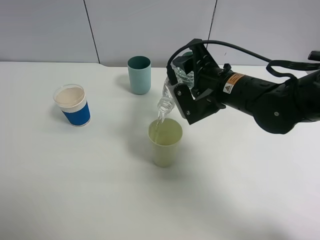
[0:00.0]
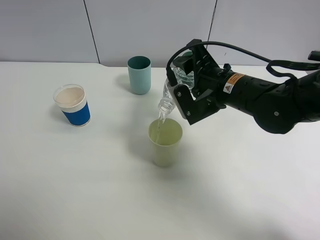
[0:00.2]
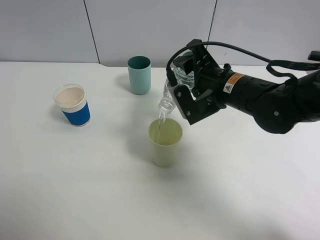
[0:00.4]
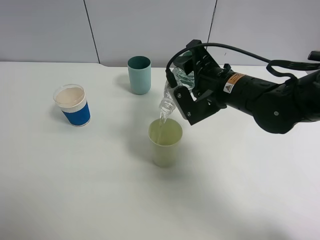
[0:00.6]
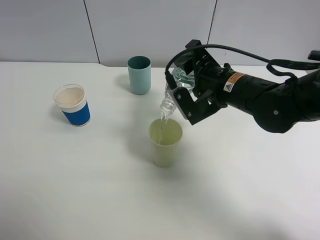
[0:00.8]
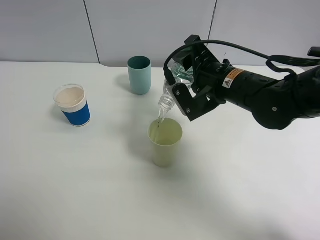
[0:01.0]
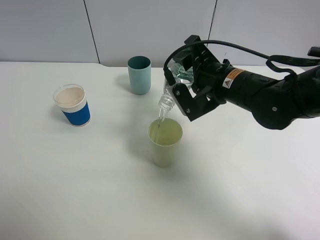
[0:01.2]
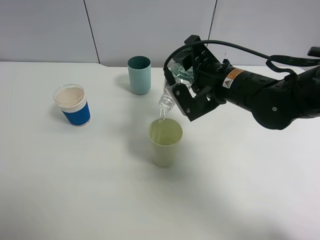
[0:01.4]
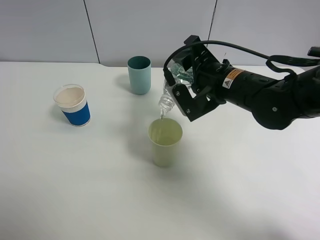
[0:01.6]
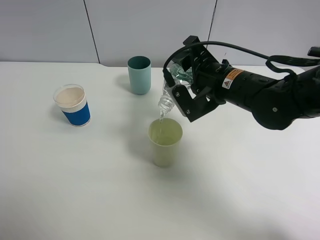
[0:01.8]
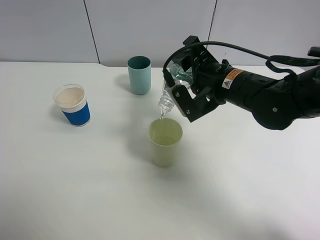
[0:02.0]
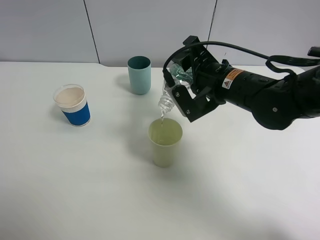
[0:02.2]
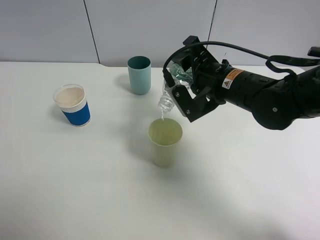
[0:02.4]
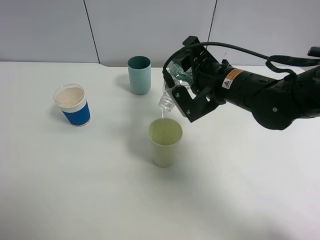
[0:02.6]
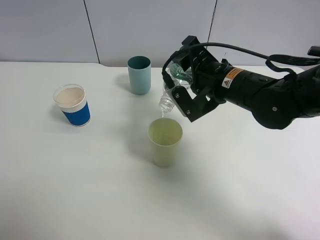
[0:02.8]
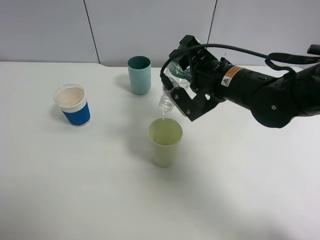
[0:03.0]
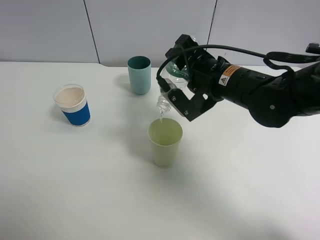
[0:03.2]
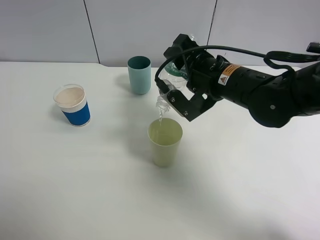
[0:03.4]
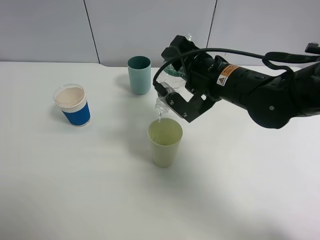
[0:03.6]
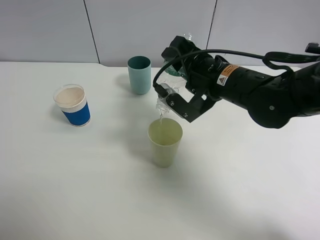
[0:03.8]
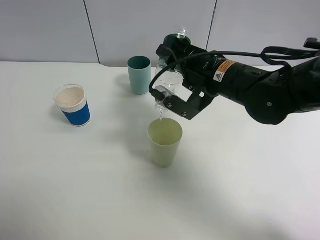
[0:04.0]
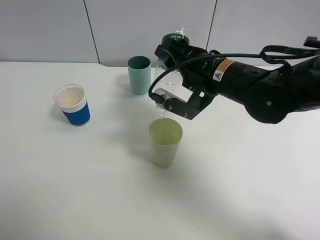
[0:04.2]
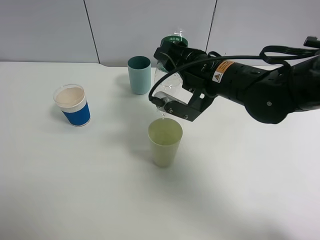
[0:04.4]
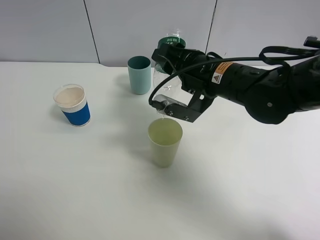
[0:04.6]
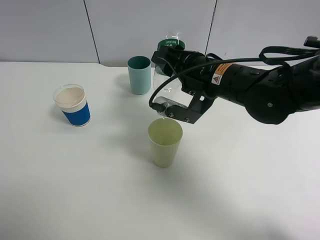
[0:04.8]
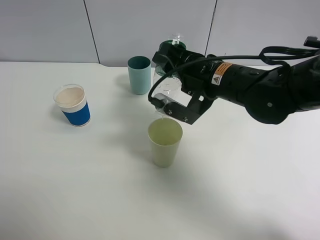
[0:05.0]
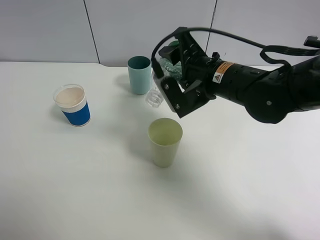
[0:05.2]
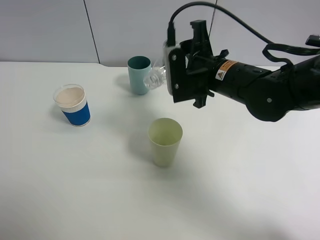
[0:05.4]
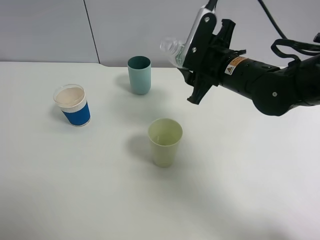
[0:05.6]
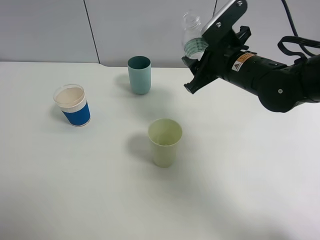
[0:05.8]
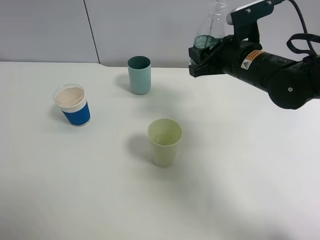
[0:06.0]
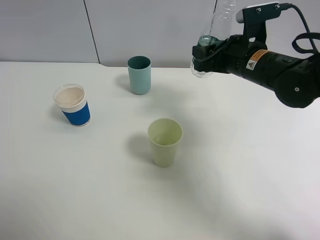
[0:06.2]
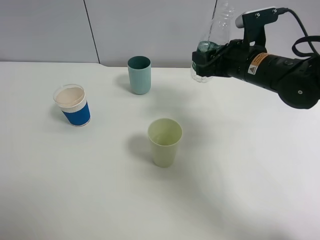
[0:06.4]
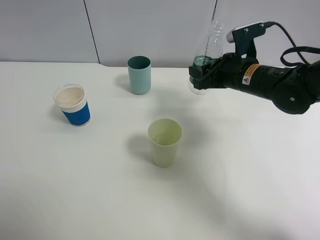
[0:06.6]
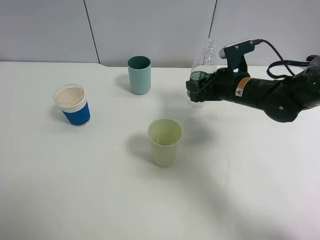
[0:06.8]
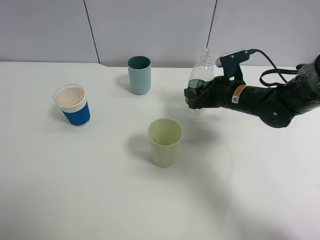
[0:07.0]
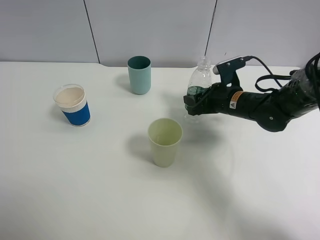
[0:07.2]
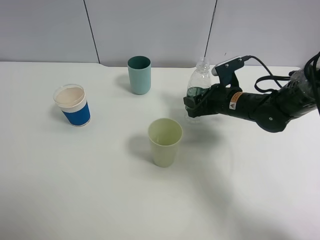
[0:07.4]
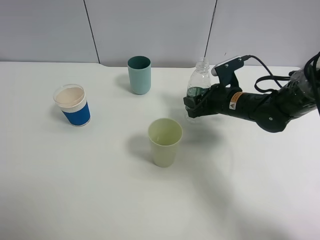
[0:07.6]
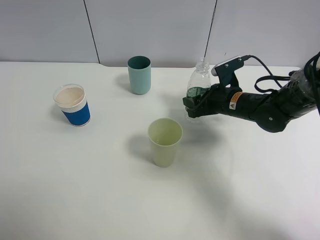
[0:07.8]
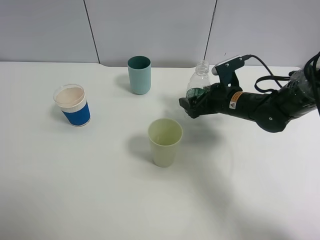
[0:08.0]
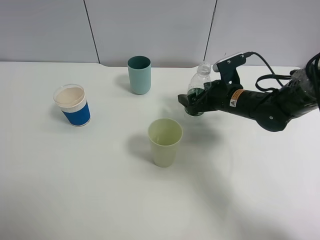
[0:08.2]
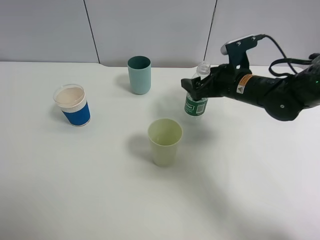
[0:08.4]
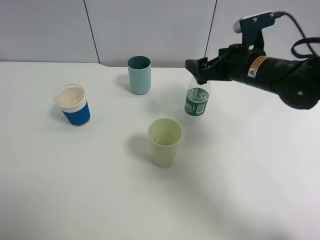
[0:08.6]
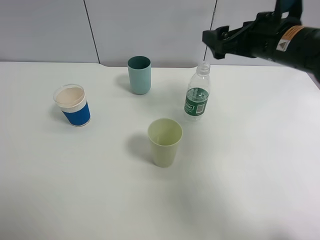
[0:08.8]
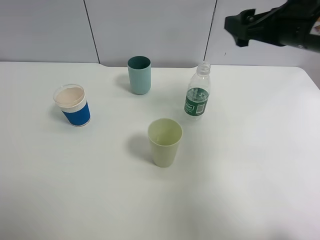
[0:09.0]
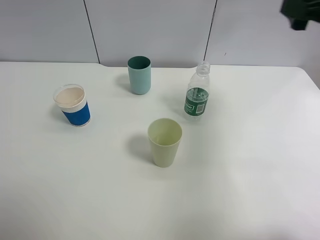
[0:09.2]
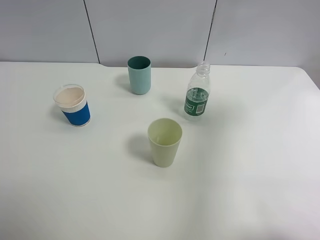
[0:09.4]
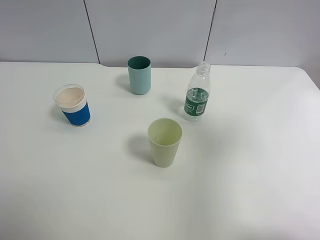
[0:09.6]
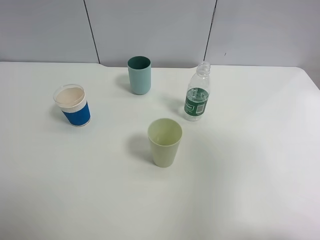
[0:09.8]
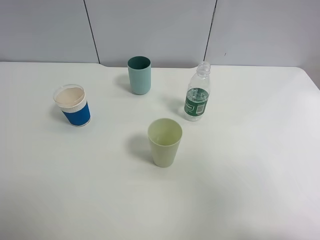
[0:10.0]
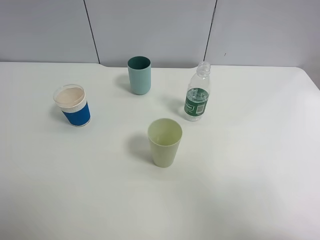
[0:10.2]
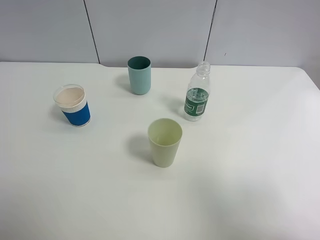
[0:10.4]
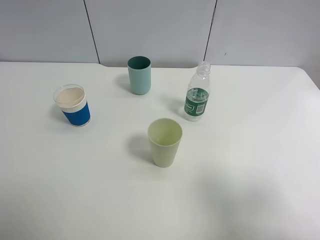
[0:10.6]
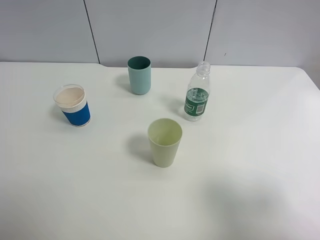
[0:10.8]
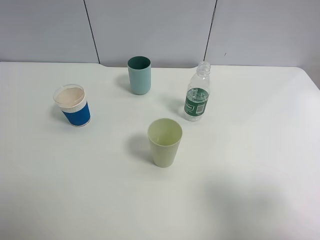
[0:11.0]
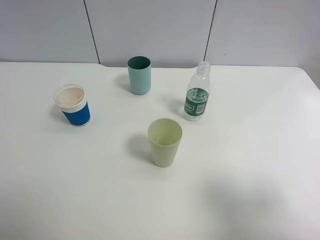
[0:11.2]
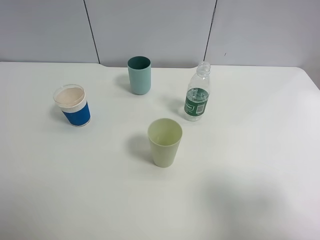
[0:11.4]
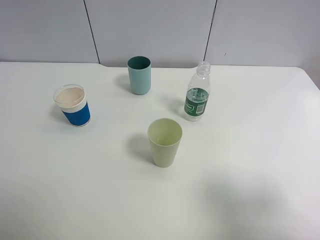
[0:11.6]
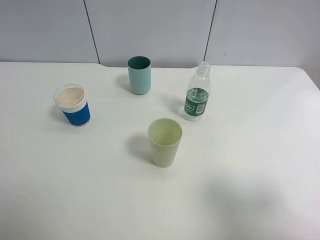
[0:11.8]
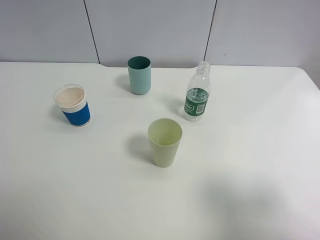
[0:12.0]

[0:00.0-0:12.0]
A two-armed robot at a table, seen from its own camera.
Task of the whole recording: use a clamp to hold the bottle of the drink, pour the beverage into a random cup, then clamp the cup containing the drink and pour the drink into another random cup.
Step, 0:00.0 to 0:05.2: Pour water into the green plastic cup with right gripper.
Step, 0:05.4 to 0:07.8: Place the water bottle on the table with right gripper.
0:00.0 to 0:03.0: There are only small adjustments of the grippers.
0:03.0 to 0:04.4: The grippers move only a little.
0:04.4 to 0:06.0: The right gripper shifts about 5 cm to the right.
0:06.0 to 0:07.6: The right gripper travels downward by approximately 10 cm.
0:07.6 to 0:09.0: The right gripper heads upward, covering some 20 cm, and opens.
0:09.0 to 0:10.4: The right gripper is displaced backward by about 30 cm.

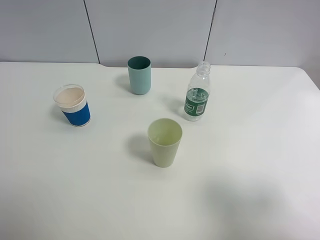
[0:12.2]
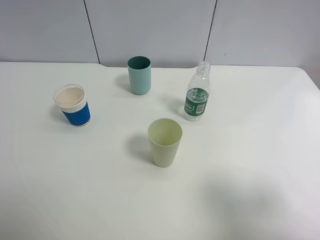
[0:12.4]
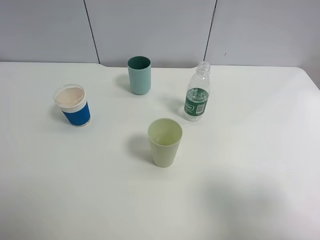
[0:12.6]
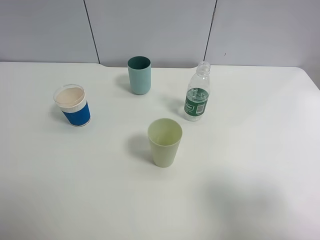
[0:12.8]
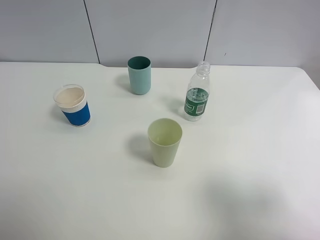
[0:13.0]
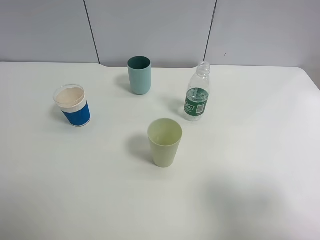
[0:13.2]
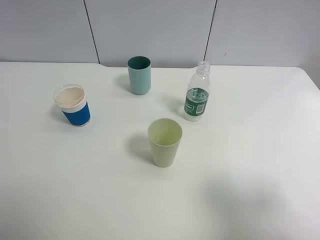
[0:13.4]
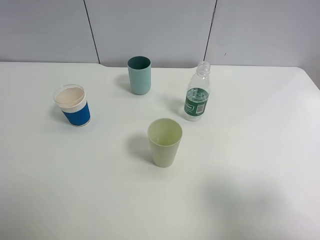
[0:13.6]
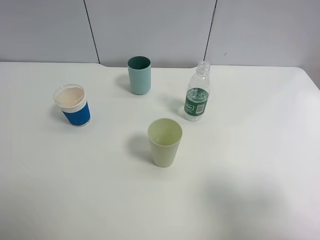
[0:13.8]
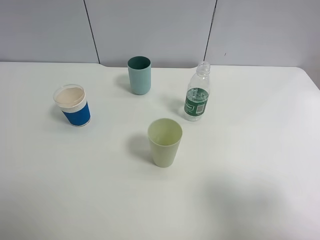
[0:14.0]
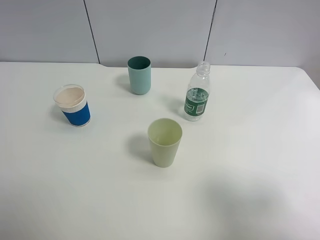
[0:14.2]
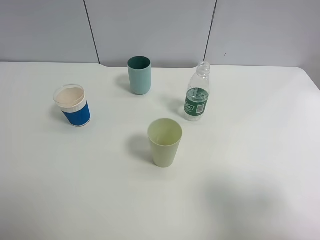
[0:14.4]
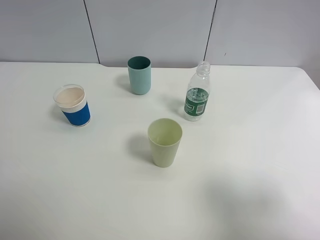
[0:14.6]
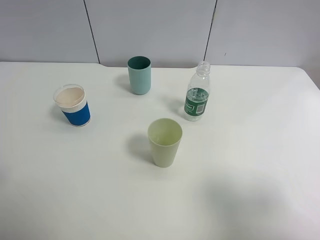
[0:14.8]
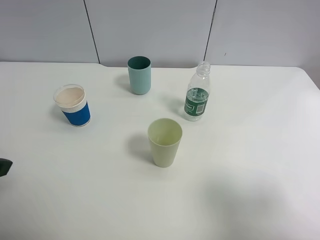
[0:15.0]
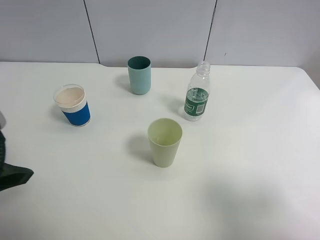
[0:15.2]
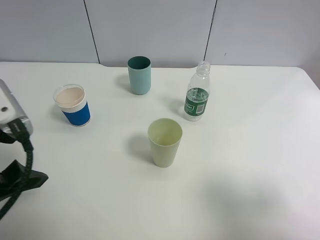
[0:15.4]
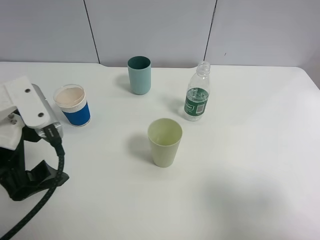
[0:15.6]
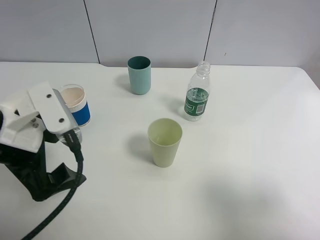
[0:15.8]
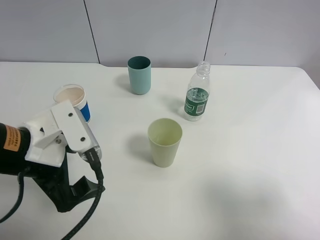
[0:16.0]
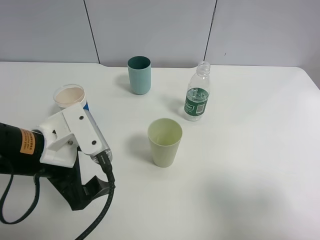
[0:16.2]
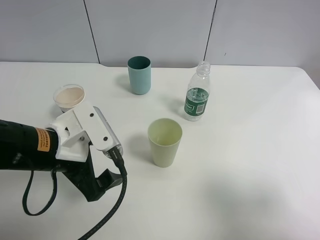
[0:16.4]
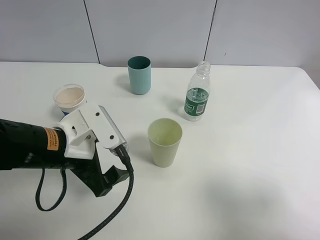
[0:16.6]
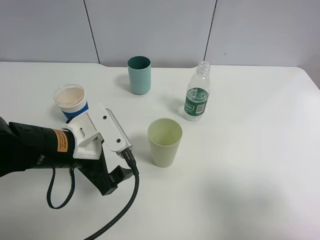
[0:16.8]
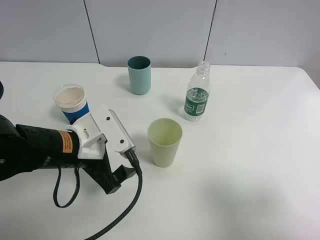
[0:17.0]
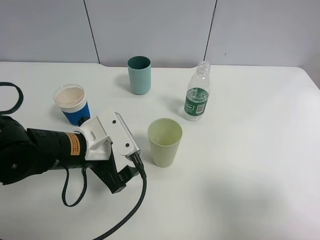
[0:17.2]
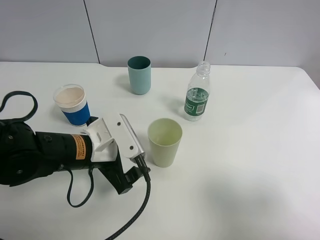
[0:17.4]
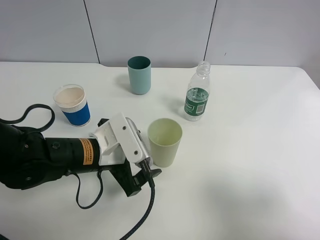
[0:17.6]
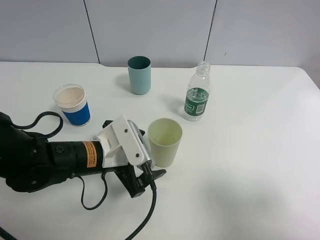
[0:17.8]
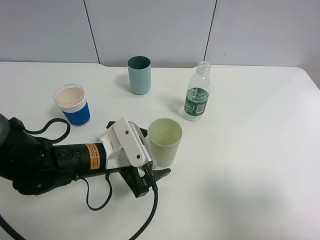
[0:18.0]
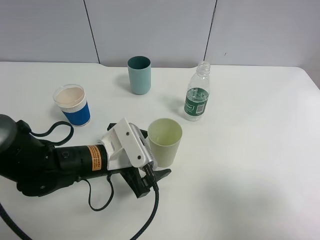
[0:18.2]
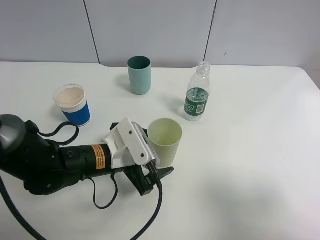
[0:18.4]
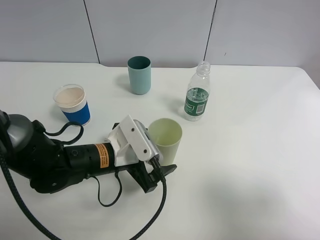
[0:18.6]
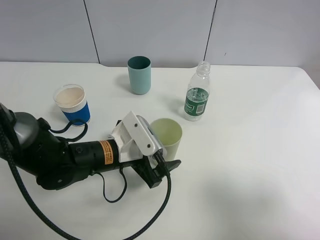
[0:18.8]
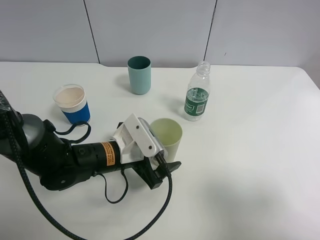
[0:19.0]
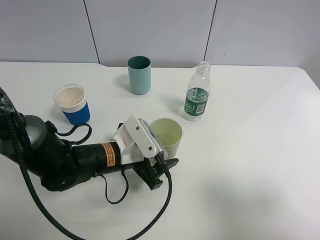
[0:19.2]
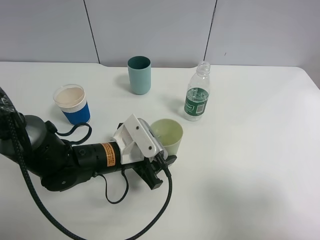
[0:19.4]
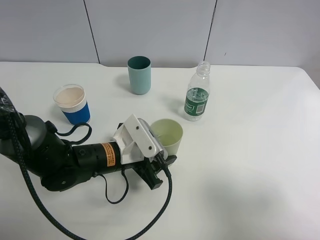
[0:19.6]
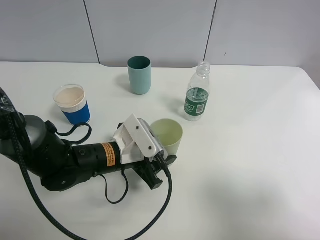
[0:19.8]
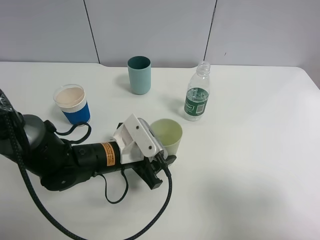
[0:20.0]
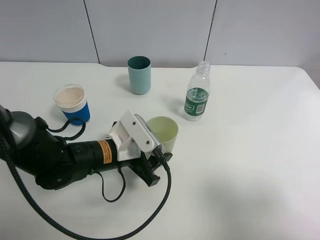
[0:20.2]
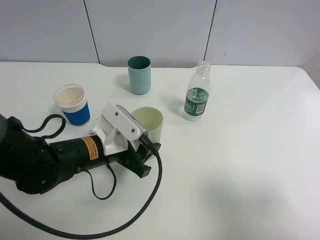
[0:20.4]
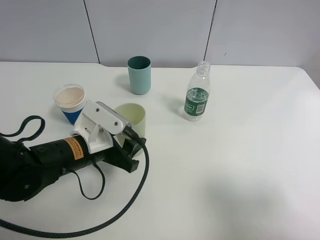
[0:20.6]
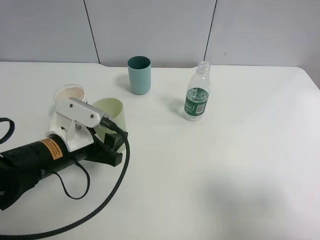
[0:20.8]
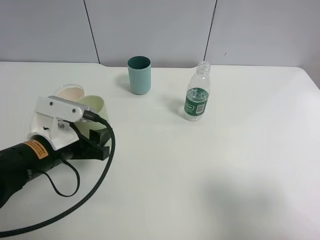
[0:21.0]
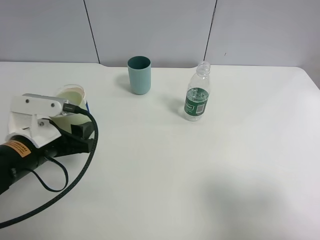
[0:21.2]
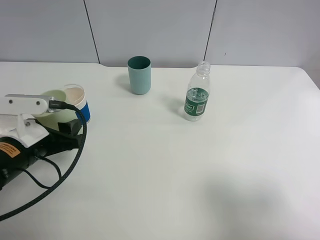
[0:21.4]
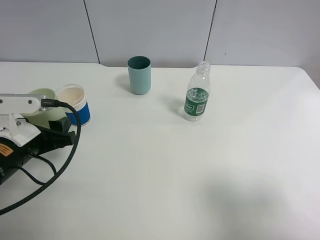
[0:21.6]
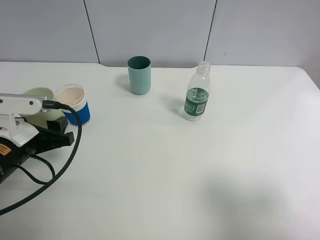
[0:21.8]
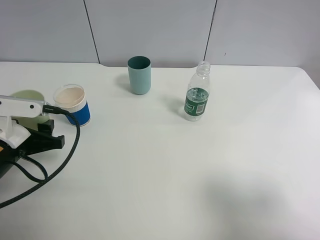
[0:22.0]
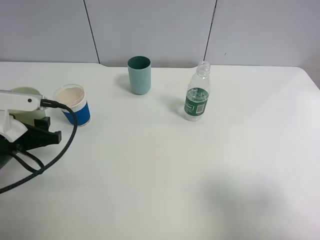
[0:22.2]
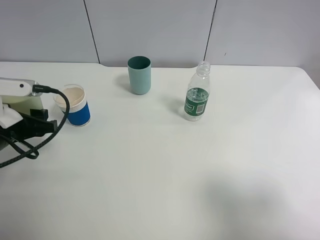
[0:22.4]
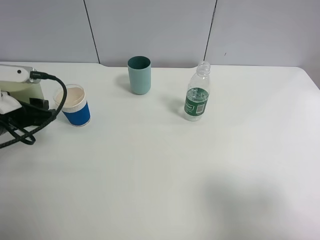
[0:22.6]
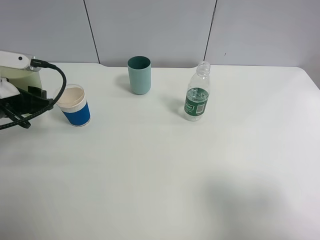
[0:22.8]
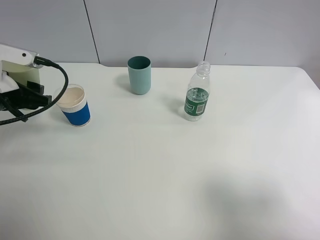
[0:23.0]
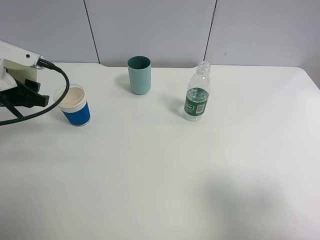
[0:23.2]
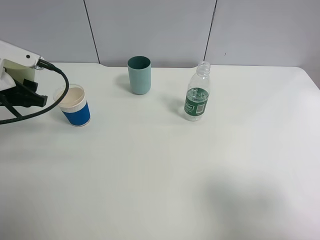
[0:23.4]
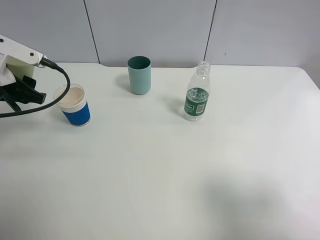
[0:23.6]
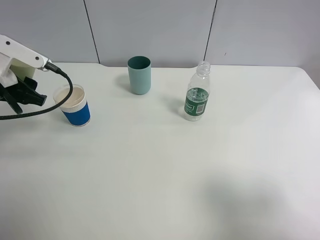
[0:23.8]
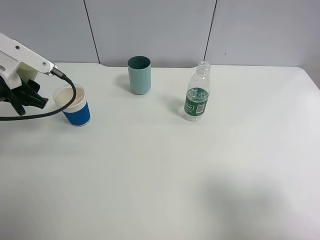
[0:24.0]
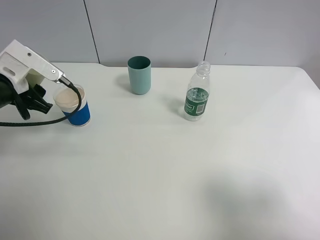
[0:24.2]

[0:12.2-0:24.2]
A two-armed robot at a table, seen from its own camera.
Task of the whole recording: use a clamp to hold the bottle of the drink, pour the beverage into a random cup, then clamp the cup containing the drink and pour the drink into another random cup.
Step, 0:12.2 to 0:20.2: Pick up the green plastic cup bottle with left gripper.
0:12.2 to 0:13.8: The two grippers keep their place.
0:13.8 to 0:15.2: The left gripper moves forward and to the right, some 15 cm.
0:15.2 to 0:16.6: The left gripper moves to the right and downward, some 15 cm.
0:16.6 to 0:18.2: The left gripper is displaced downward by approximately 5 cm.
0:18.2 to 0:19.8: The left gripper closes.
0:19.8 to 0:21.2: The left gripper is displaced to the left and upward by about 15 cm.
0:21.2 to 0:22.6: The left gripper travels to the left by roughly 5 cm.
